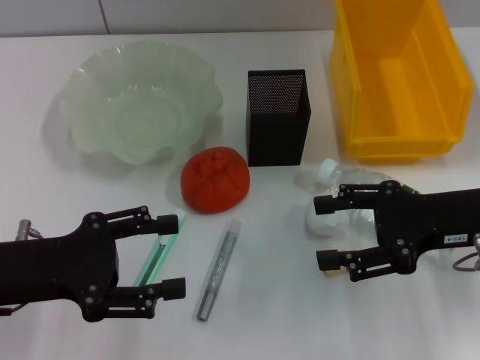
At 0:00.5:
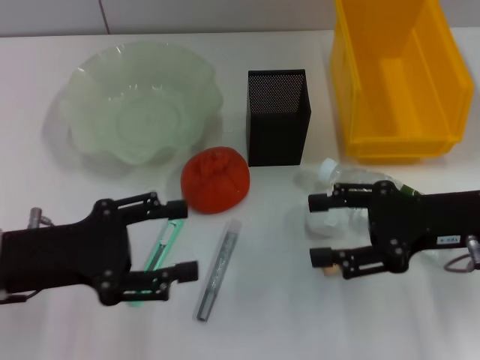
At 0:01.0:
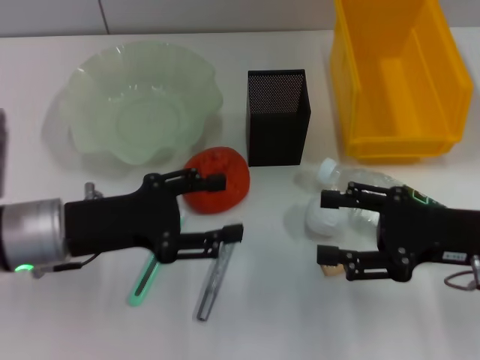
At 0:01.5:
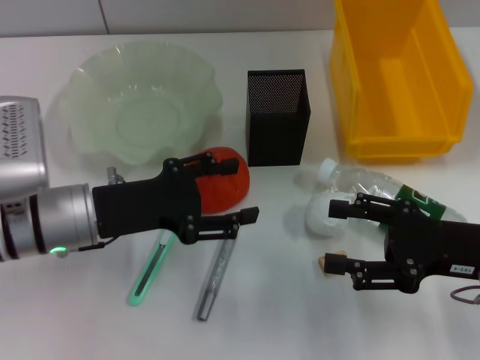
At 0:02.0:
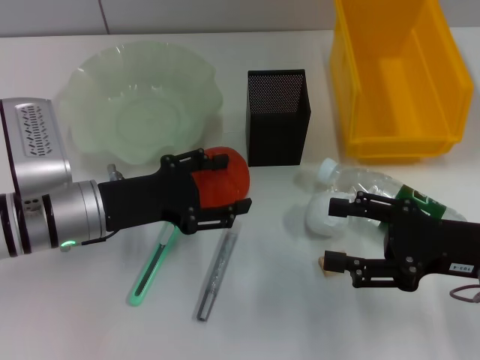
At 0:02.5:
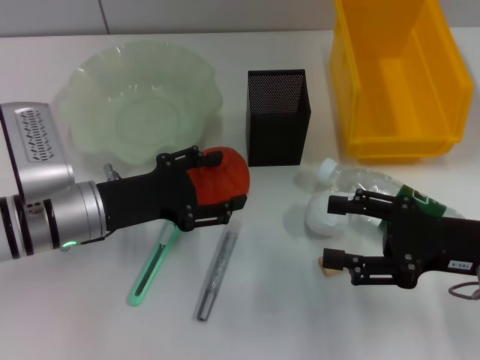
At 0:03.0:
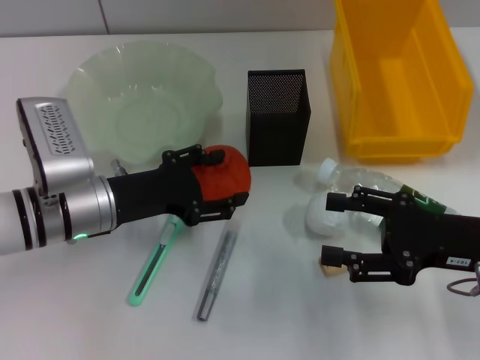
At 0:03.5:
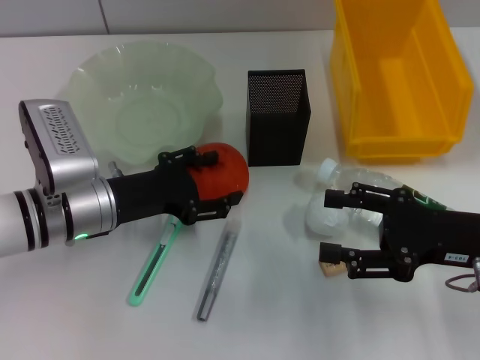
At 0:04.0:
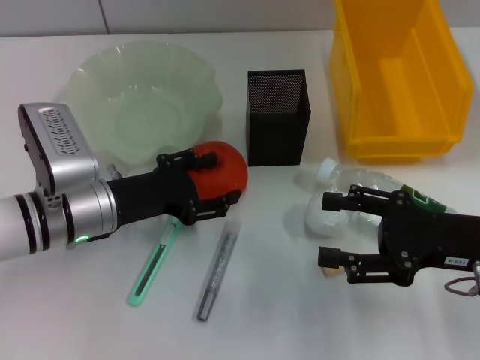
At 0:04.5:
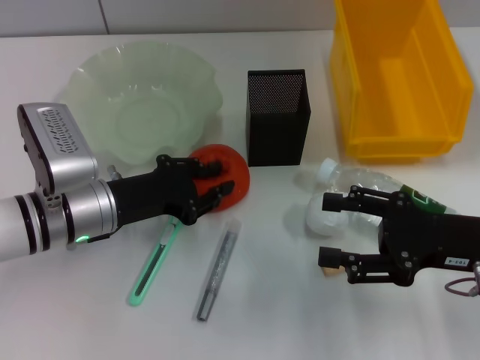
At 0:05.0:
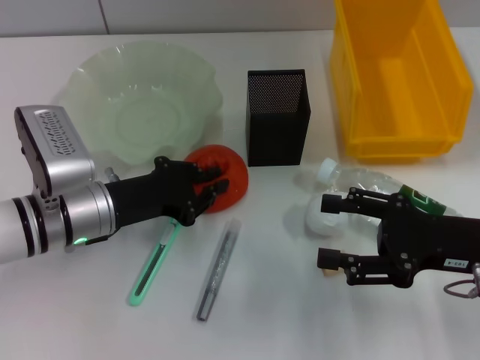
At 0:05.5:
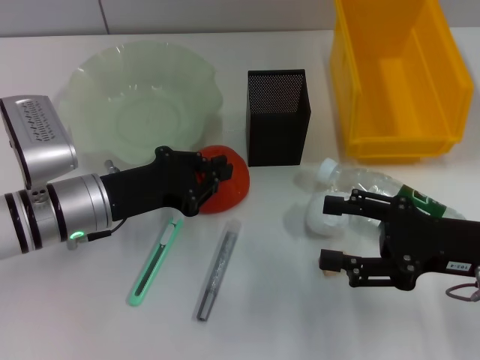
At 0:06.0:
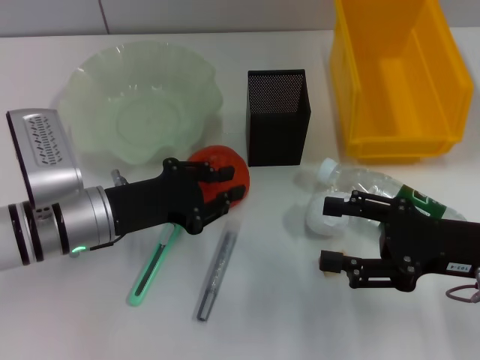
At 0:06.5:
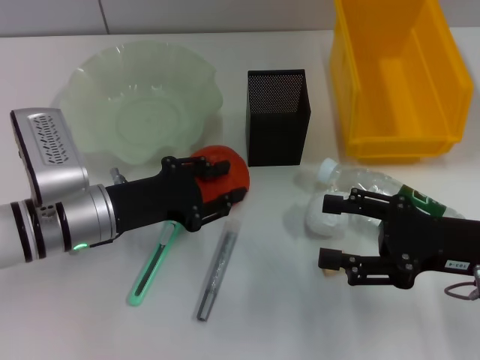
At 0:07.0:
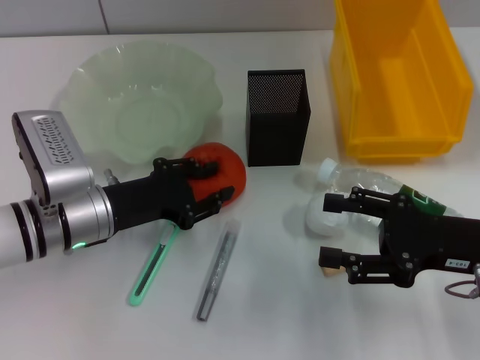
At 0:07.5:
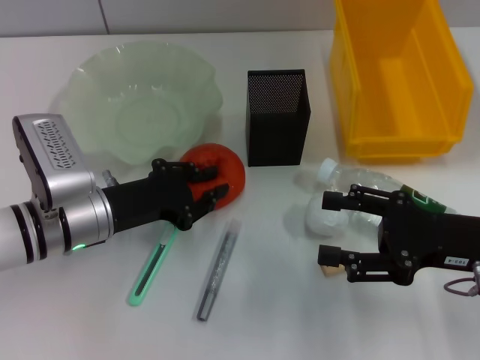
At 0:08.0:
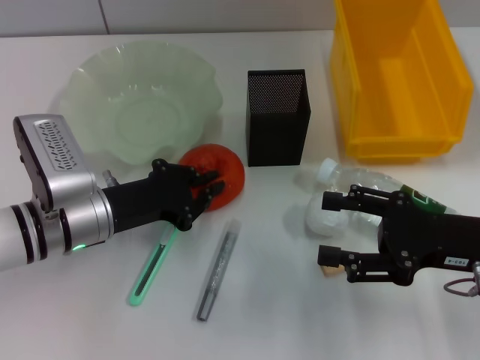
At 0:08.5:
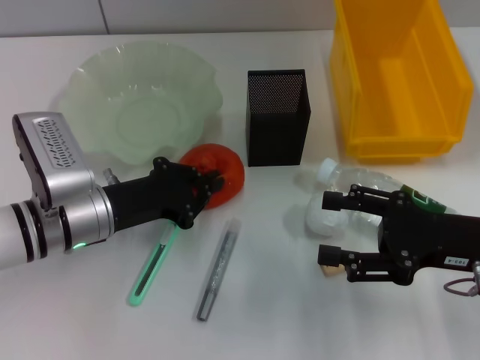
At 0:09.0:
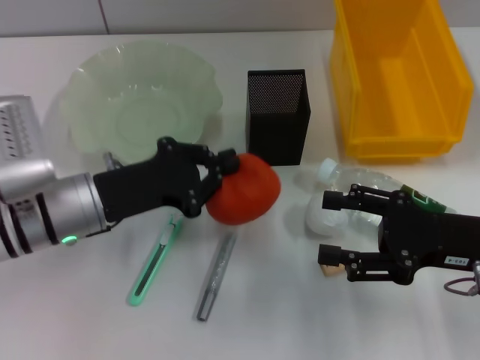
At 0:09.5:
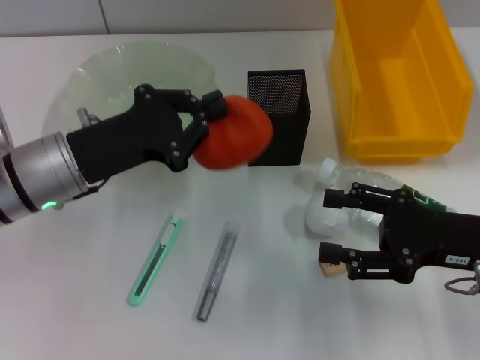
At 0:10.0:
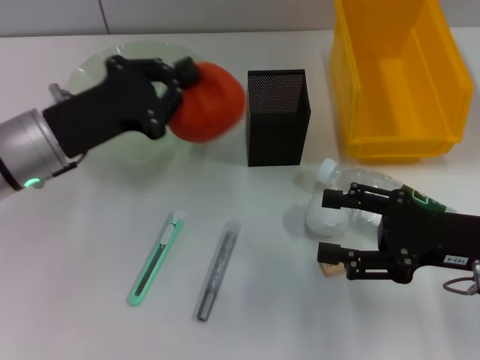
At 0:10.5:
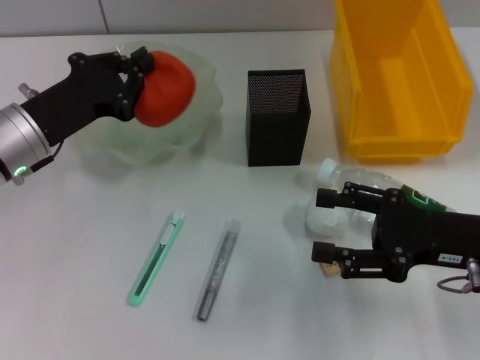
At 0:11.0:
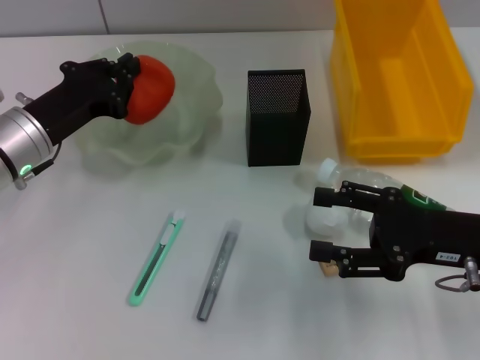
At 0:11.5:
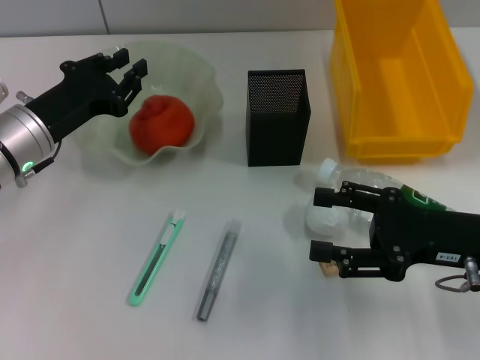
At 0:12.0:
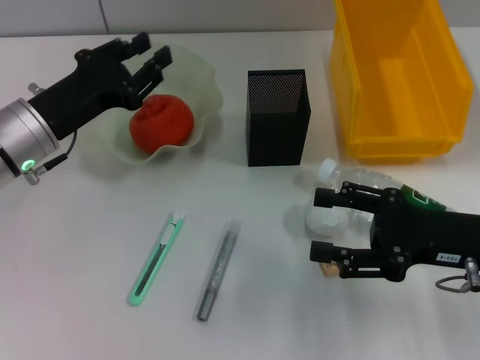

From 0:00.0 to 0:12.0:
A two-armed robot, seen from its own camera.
Step, from 0:00.0 to 0:08.5: Grab the orange with the left hand.
Step, from 0:09.0 to 0:11.5: Place the orange into the fruit bowl with the left hand.
From 0:00.0 to 0:02.0: The right gripper changes place by approximately 5 cm, while the left gripper heads forward and to the right, covering about 10 cm.
From 0:02.0 to 0:04.0: The grippers move only a little.
From 0:04.0 to 0:06.0: The left gripper closes its fingers.
From 0:06.0 to 0:08.0: The left gripper opens, then closes again.
From 0:08.0 to 0:10.0: The left gripper heads upward, covering roughly 5 cm.
From 0:10.0 to 0:12.0: The left gripper opens its fingers.

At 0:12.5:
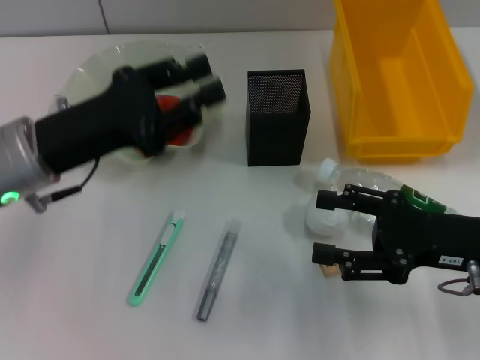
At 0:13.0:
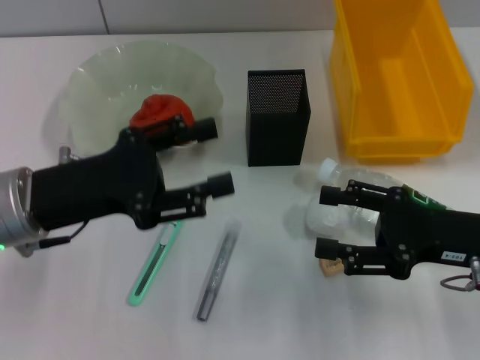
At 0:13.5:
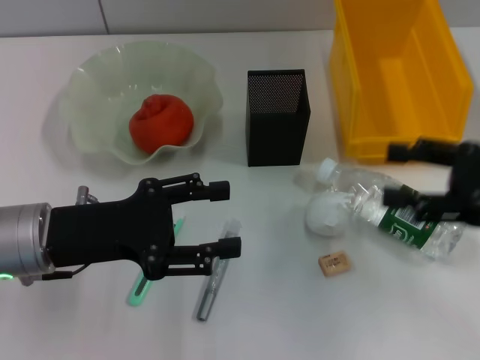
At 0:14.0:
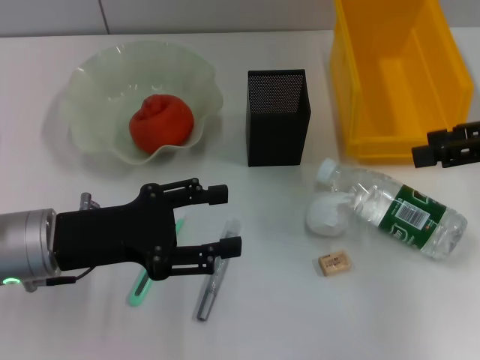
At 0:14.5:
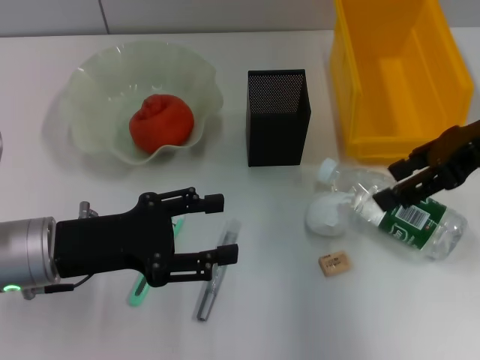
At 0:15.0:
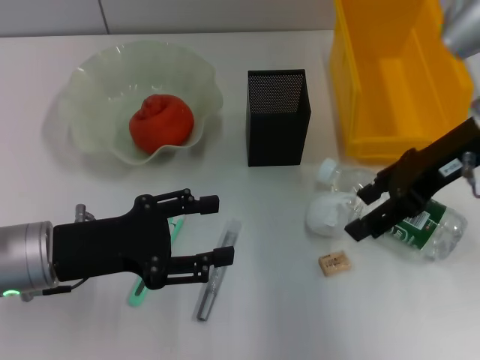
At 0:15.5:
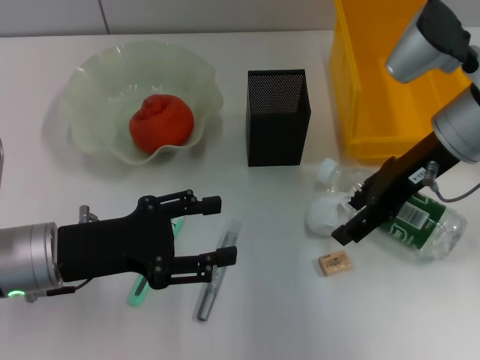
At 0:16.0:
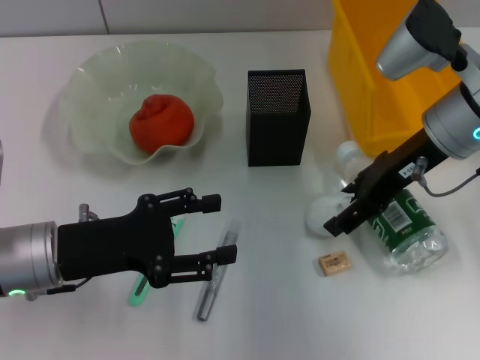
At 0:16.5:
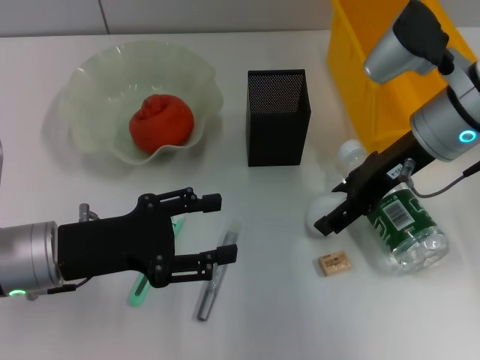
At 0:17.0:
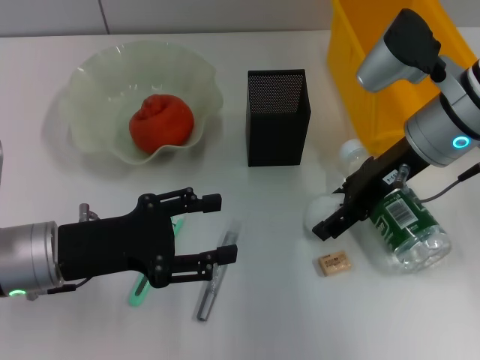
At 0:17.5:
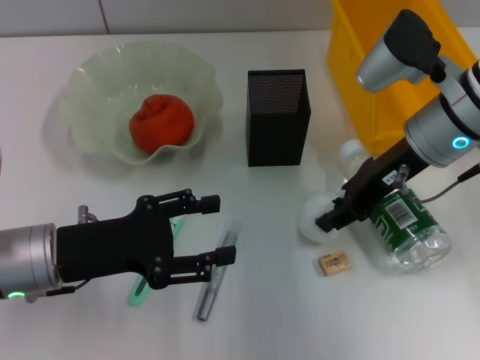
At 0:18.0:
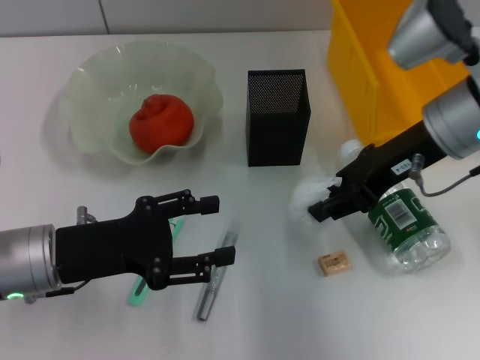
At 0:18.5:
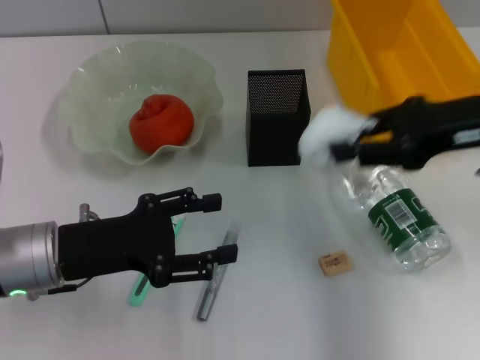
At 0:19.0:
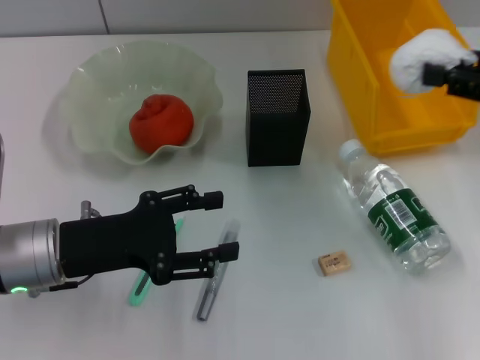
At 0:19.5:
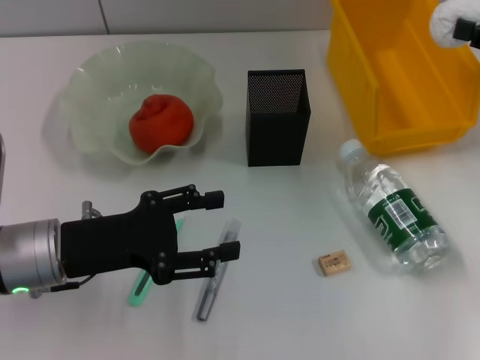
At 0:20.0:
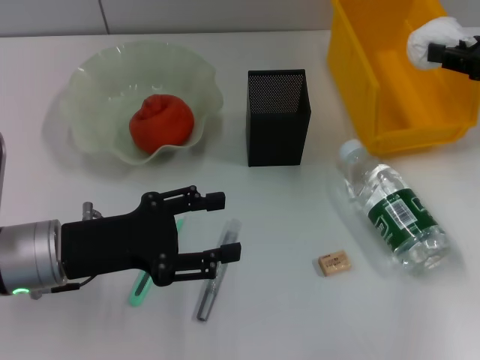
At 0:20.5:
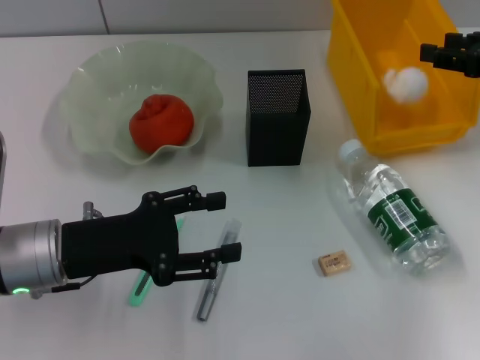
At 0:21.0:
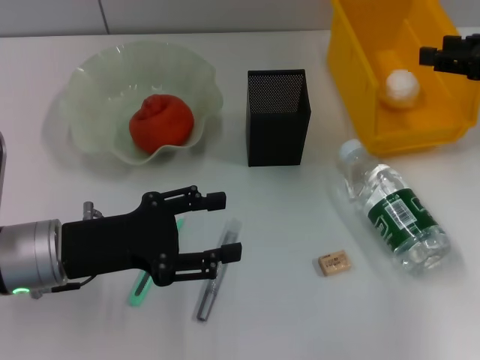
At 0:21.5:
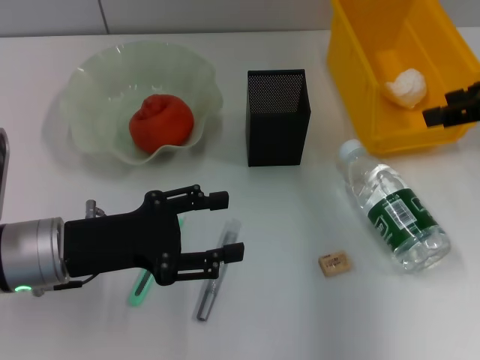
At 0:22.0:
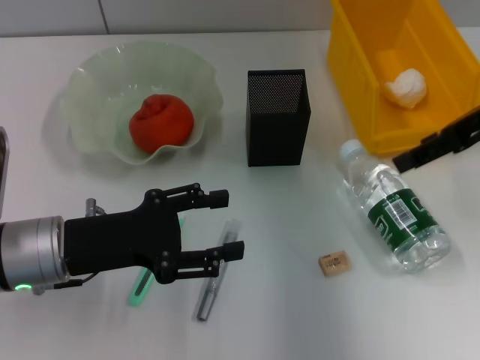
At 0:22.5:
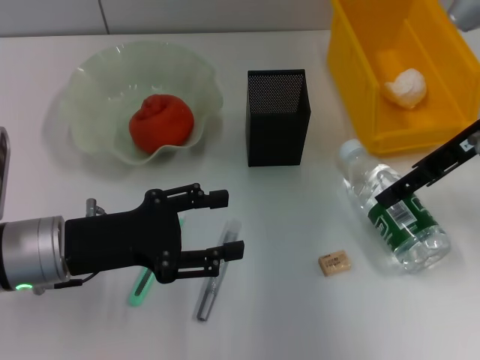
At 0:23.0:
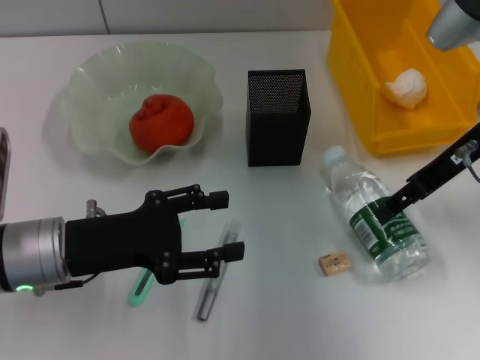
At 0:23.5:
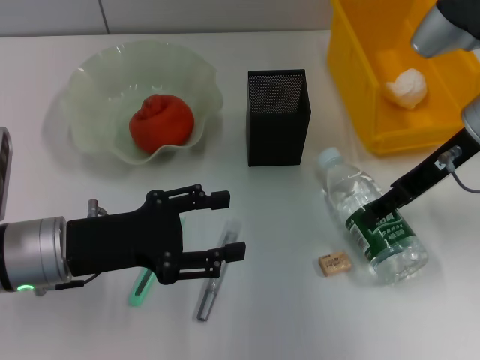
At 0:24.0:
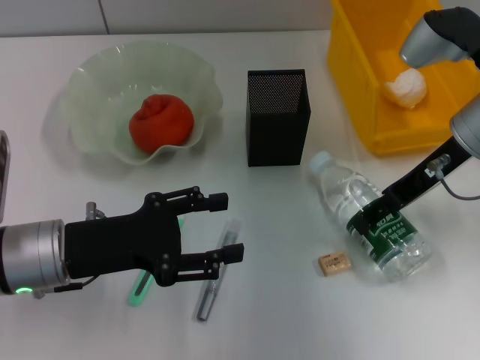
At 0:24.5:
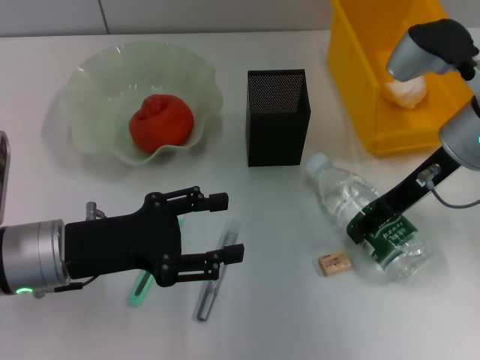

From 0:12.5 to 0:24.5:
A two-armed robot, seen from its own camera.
Step, from 0:12.5 to 0:17.0: Grab the paper ball with the right hand.
Step, from 0:17.5 to 0:20.5: Place the paper ball into the trash can with the right hand.
From 0:12.5 to 0:14.5: The left gripper moves roughly 5 cm, and opens up; the right gripper travels upward and forward by roughly 15 cm.
From 0:14.5 to 0:16.5: The right gripper shifts roughly 10 cm to the left and downward.
From 0:16.5 to 0:18.5: The right gripper shifts roughly 10 cm to the right, backward and upward, and closes.
From 0:18.5 to 0:20.5: The right gripper goes approximately 10 cm to the right and forward.
From 0:20.5 to 0:22.5: The right gripper goes approximately 10 cm to the left, and opens up.
From 0:22.5 to 0:24.5: The right gripper changes place by about 5 cm.

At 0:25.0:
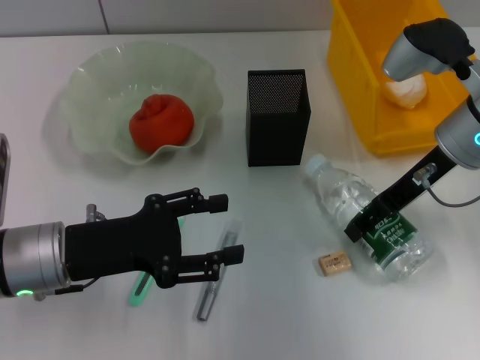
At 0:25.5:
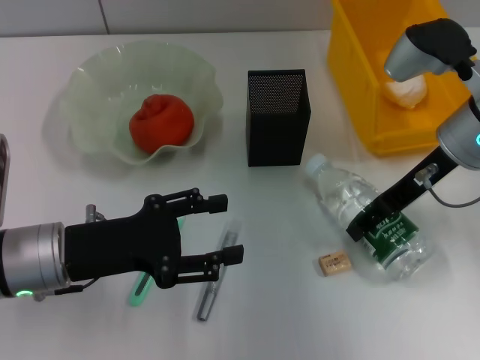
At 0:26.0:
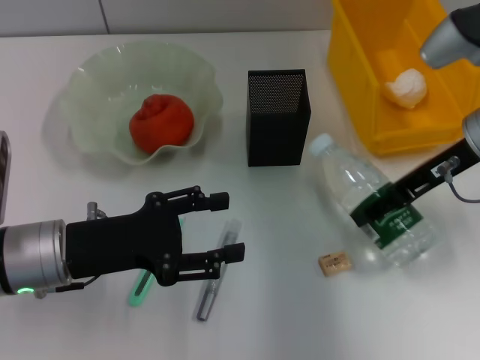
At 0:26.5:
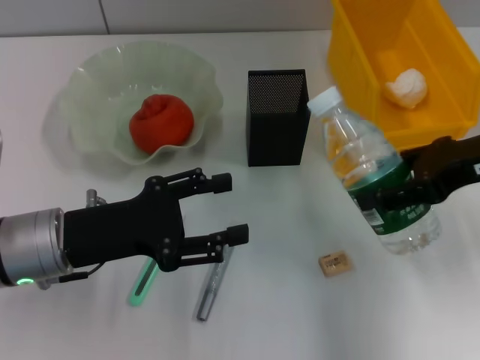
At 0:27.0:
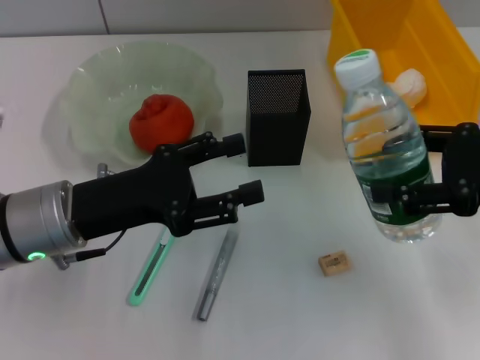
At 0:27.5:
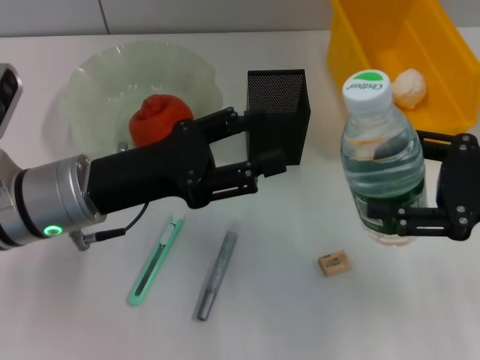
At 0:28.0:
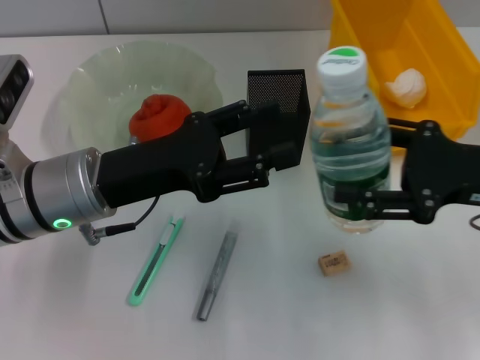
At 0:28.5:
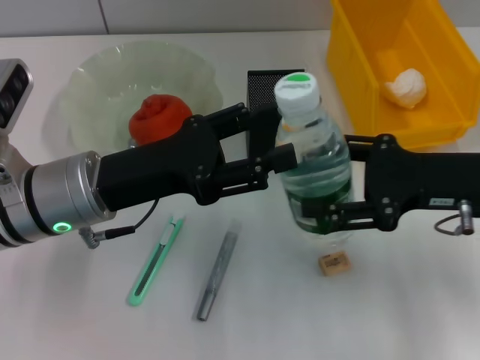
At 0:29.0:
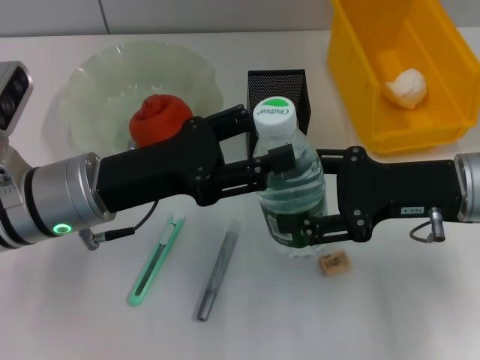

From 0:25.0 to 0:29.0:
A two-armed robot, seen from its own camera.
From 0:25.0 to 0:27.0: The right gripper heads backward and to the right, covering roughly 15 cm.
From 0:27.0 to 0:29.0: The right gripper shifts roughly 10 cm to the left and downward.
